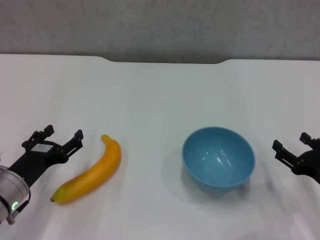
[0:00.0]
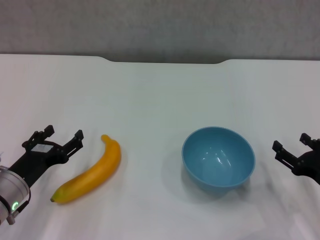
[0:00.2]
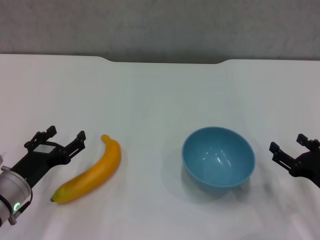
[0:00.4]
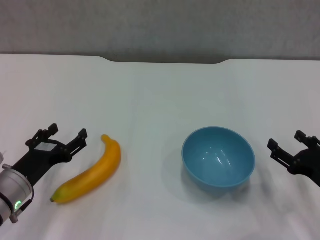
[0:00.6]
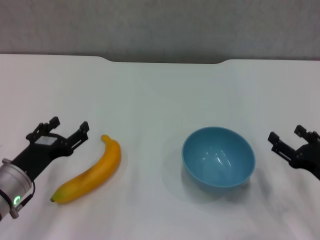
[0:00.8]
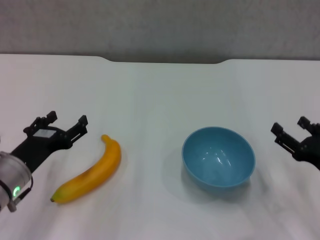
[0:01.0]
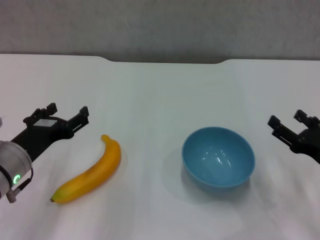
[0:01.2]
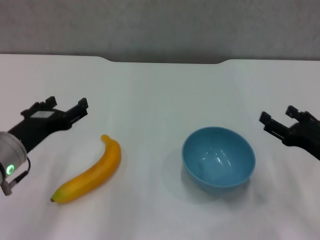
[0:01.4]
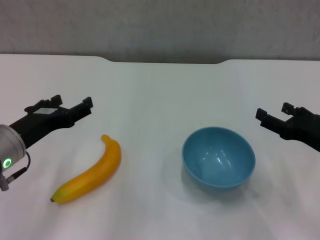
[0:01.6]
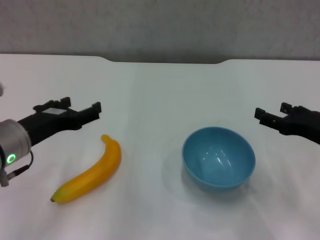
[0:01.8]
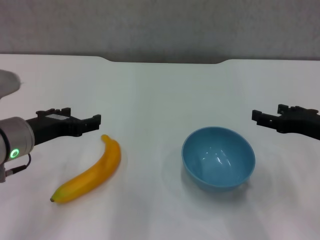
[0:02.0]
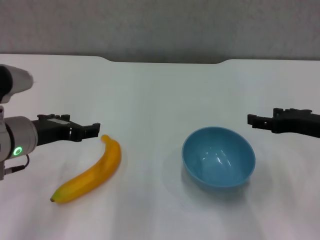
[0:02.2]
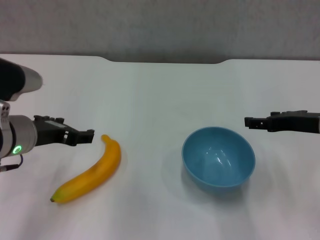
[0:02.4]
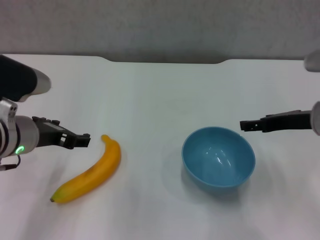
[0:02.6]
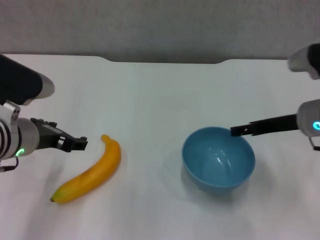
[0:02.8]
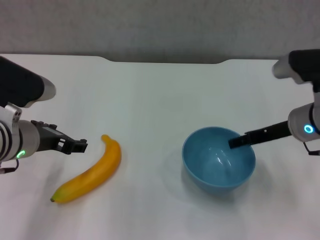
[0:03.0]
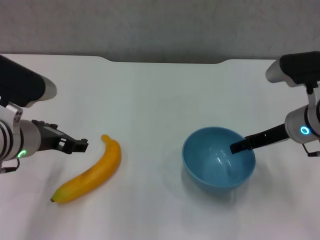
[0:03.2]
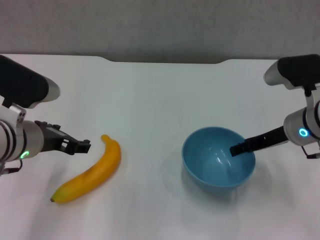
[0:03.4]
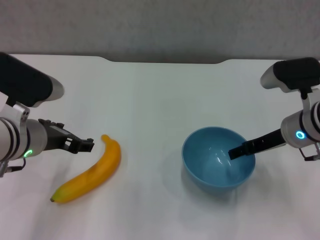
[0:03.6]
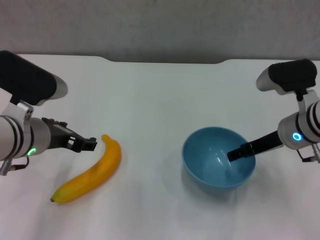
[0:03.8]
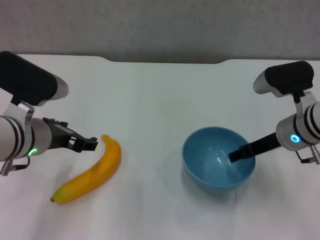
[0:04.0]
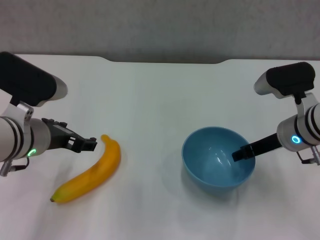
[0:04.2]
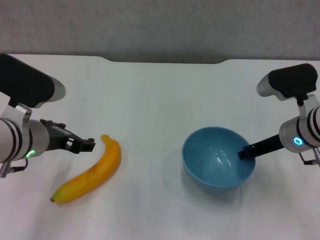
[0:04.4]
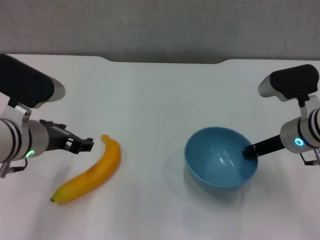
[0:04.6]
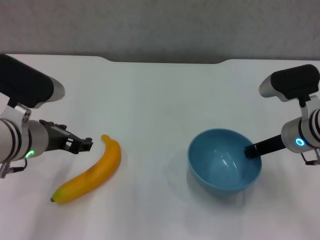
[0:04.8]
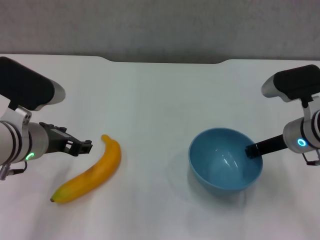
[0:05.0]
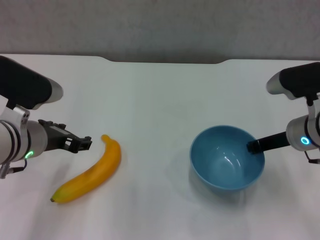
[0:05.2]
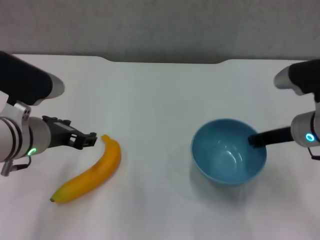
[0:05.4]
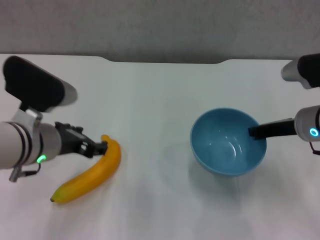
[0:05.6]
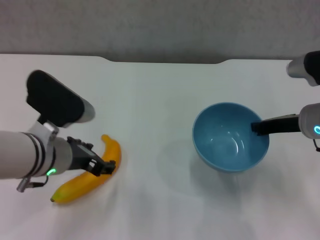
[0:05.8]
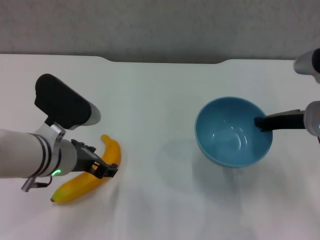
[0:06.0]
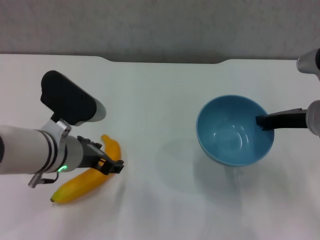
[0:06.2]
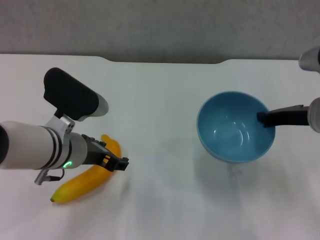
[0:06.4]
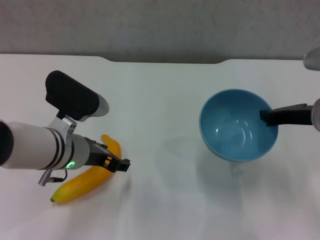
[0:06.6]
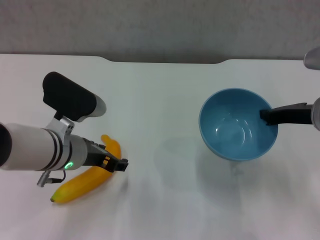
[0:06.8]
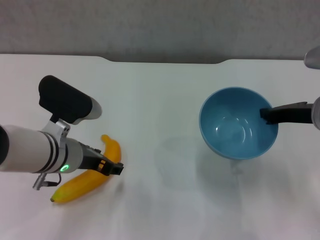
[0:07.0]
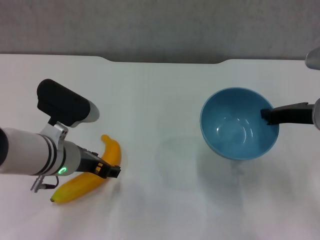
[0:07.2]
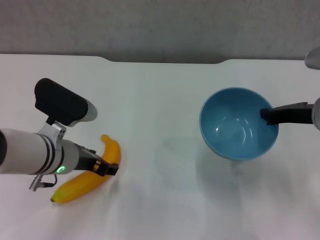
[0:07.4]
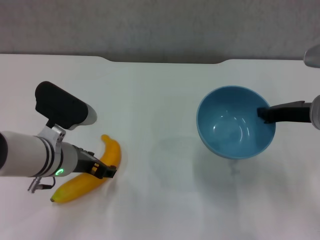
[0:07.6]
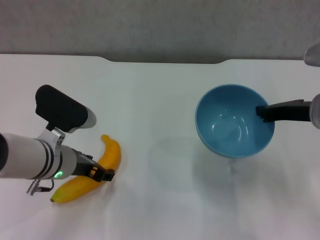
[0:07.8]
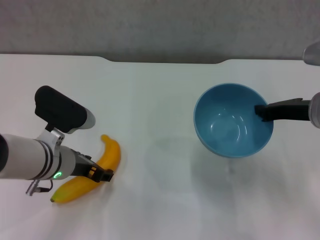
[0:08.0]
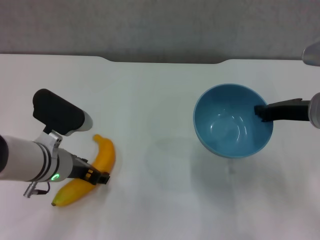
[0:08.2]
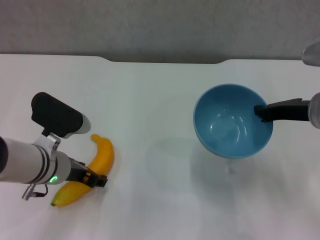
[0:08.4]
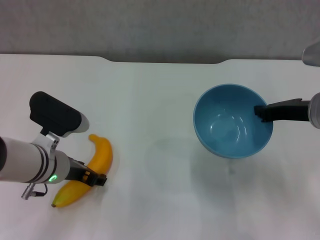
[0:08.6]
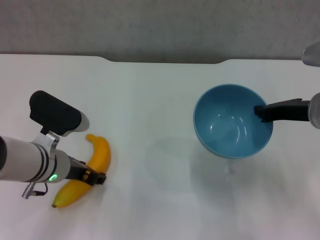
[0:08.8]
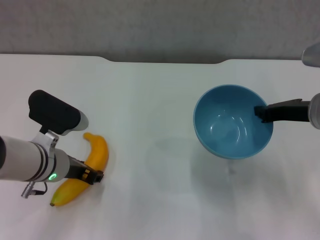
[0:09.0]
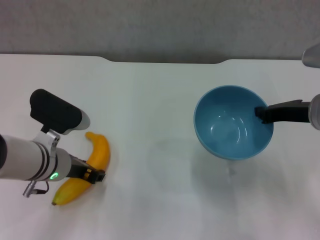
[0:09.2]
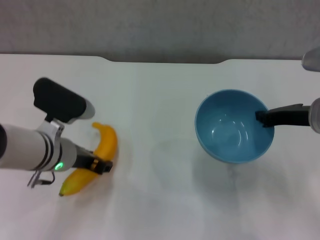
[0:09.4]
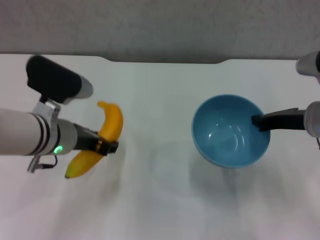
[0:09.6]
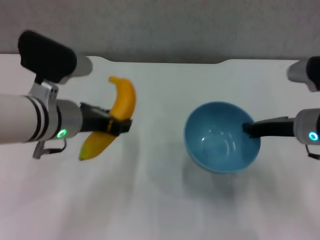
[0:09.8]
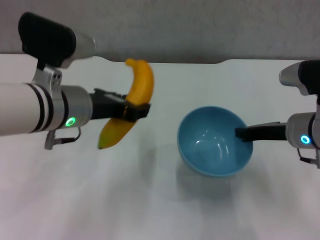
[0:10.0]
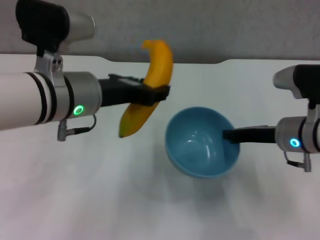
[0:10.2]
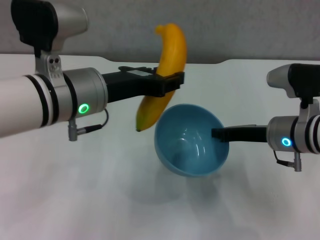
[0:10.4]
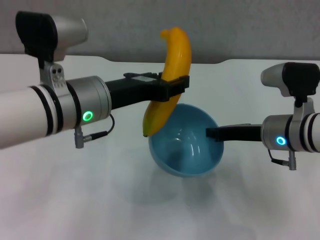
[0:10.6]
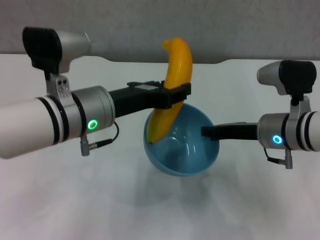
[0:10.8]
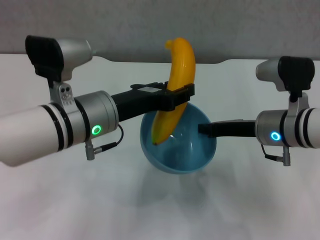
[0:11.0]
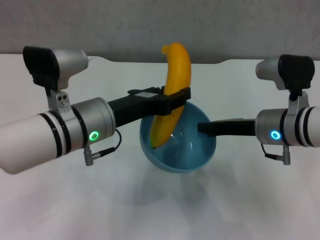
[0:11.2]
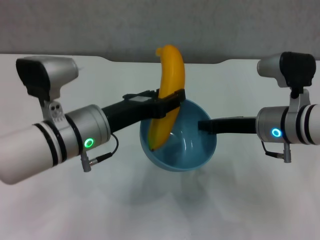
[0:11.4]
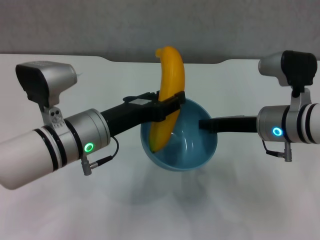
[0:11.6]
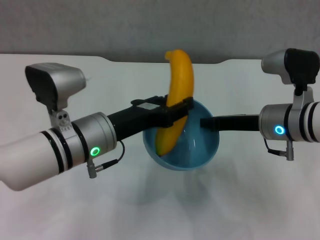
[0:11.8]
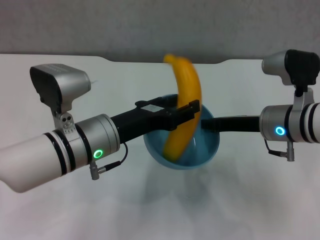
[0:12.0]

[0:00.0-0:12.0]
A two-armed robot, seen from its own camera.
Step, 0:00.0 to 0:04.8: Grasp the blue bowl with right gripper.
Step, 0:05.2 to 0:06.2: Lift the blue bowl with right gripper.
Step, 0:06.4 to 0:09.0: Grasp the banana with left gripper.
0:00.0 to 0:01.6: The grippers both shift upward by roughly 10 cm.
0:01.6 to 0:03.0: The right gripper shifts about 10 cm forward and to the left.
0:03.0 to 0:04.4: The right gripper closes.
0:04.4 to 0:06.0: The right gripper closes its fingers.
0:06.0 to 0:09.0: The grippers move only a little.
0:09.0 to 0:10.4: The left gripper moves upward and to the right, approximately 15 cm. Meanwhile the right gripper shifts roughly 5 cm downward.
0:10.4 to 0:12.0: The left gripper is displaced downward by approximately 10 cm.

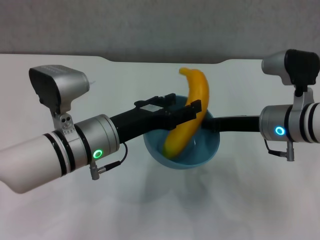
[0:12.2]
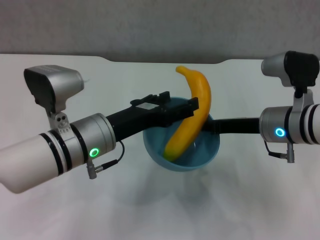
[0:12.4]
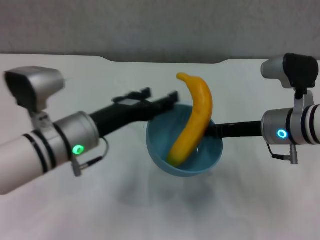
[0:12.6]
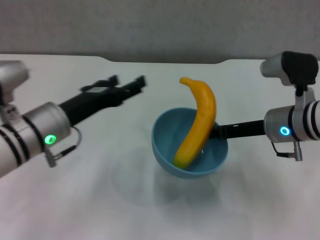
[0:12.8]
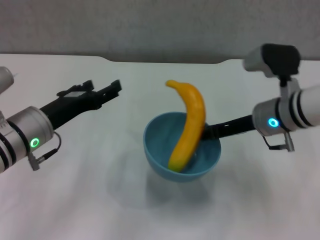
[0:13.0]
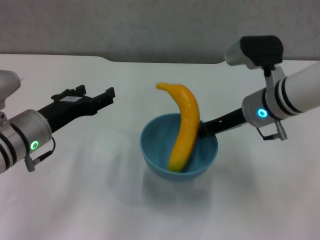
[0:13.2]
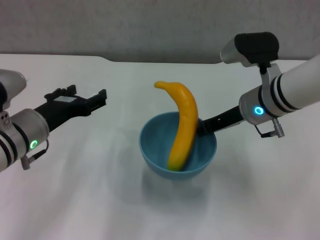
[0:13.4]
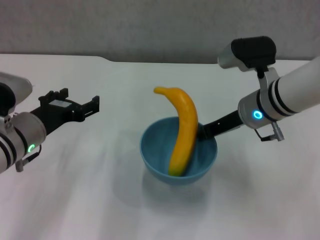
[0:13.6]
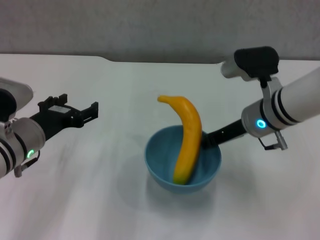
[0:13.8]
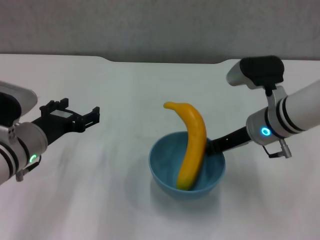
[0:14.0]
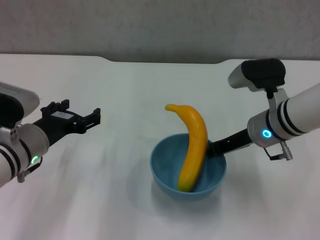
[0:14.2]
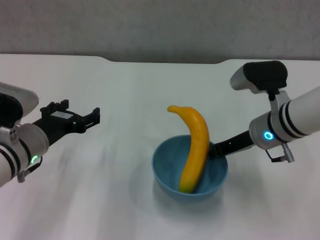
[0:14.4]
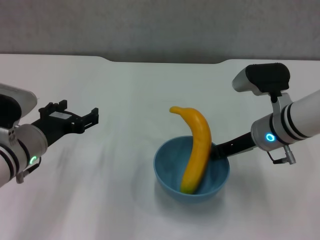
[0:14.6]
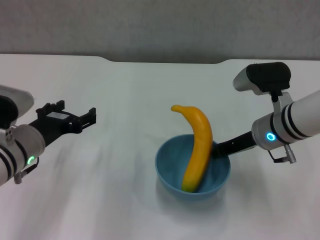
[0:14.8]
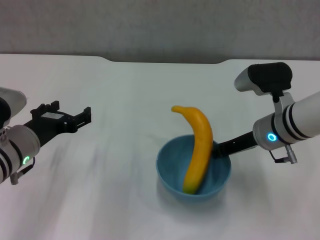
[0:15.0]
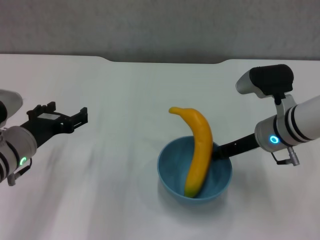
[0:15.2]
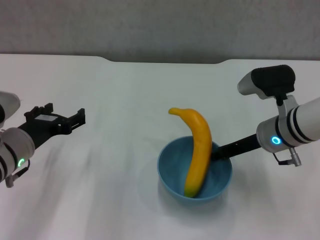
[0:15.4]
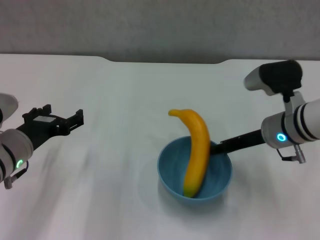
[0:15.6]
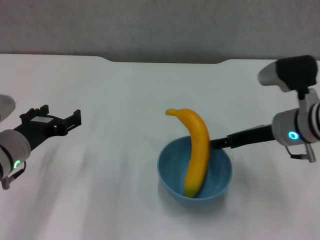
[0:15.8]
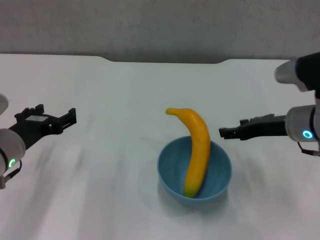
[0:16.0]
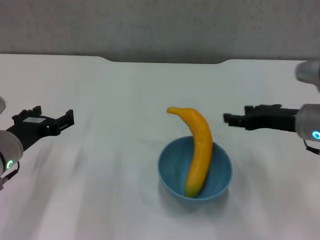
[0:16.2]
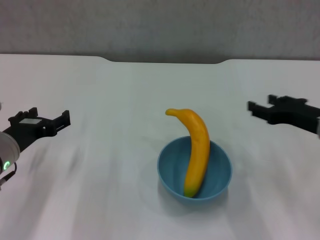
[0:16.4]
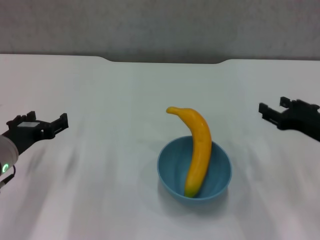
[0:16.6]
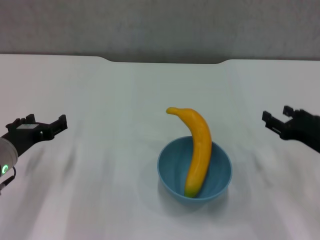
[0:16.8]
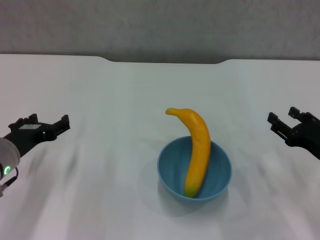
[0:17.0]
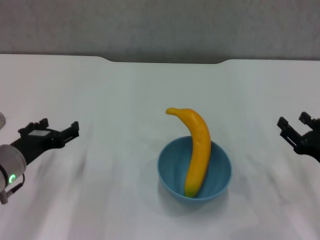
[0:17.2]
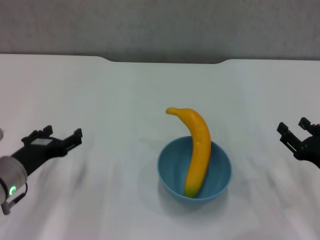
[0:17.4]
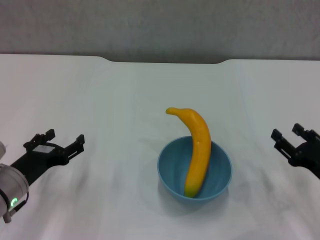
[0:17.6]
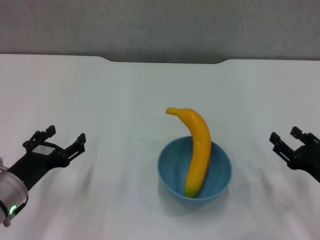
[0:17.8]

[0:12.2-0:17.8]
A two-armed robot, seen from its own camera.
Step, 0:12.6 to 0:15.8: Place the bowl on the table with right gripper.
0:12.2 to 0:13.6: The right gripper changes place by about 5 cm, while the left gripper moves to the left, approximately 10 cm, and opens up.
0:15.0 to 0:16.4: The right gripper is displaced to the right by about 10 cm, and opens its fingers.
0:16.4 to 0:17.8: The left gripper moves downward, some 5 cm. The right gripper heads downward and backward, covering roughly 10 cm.
